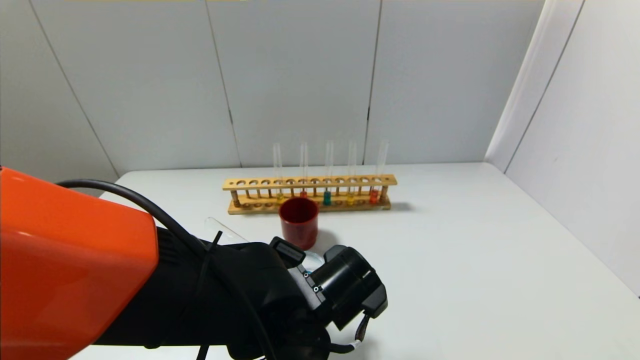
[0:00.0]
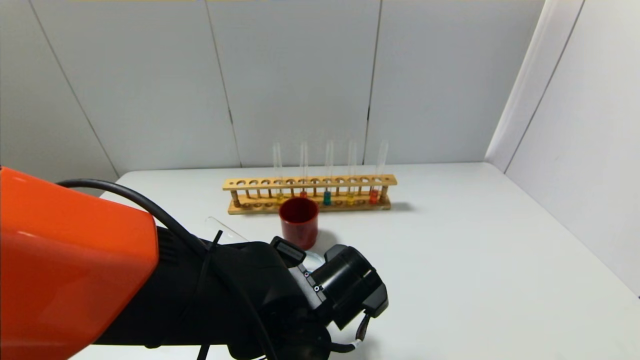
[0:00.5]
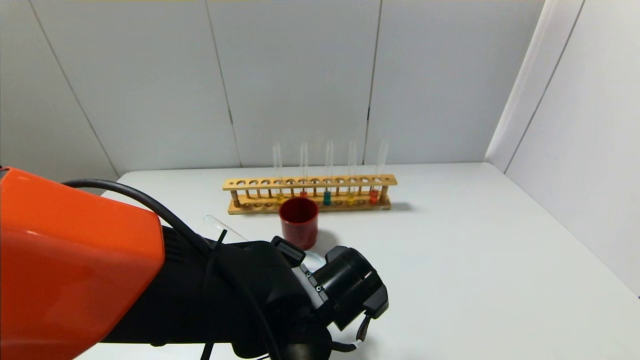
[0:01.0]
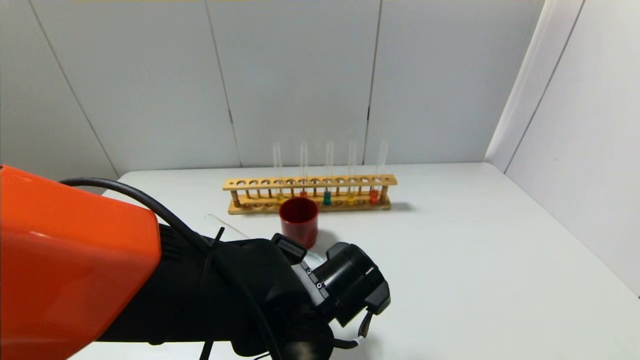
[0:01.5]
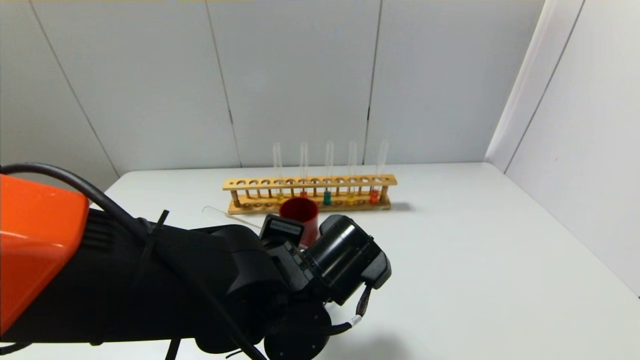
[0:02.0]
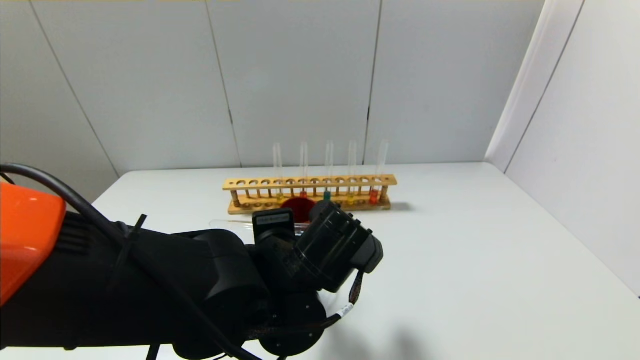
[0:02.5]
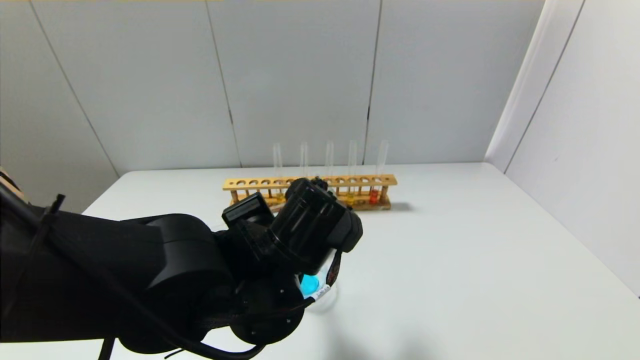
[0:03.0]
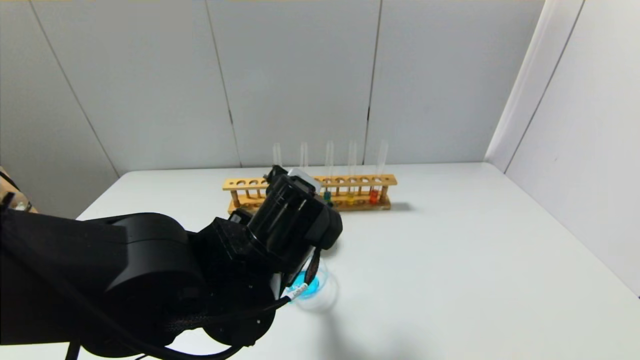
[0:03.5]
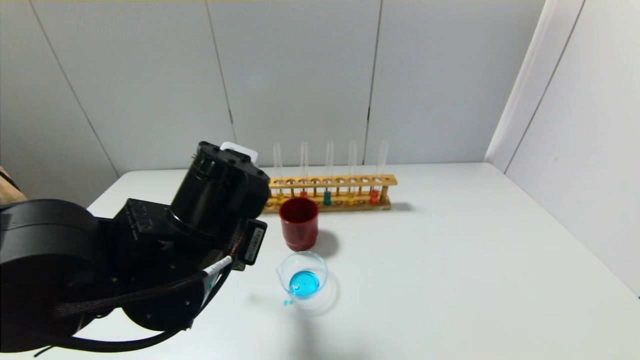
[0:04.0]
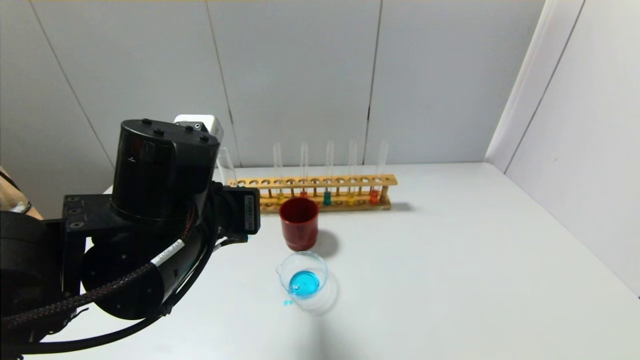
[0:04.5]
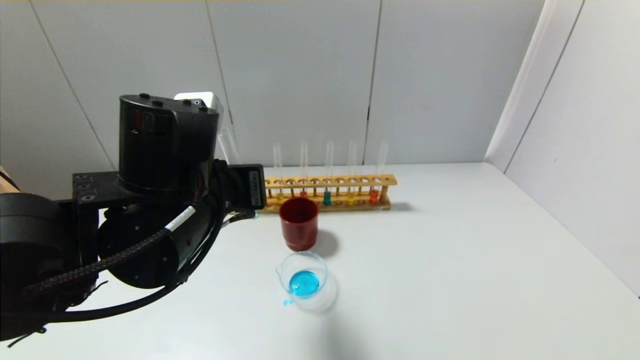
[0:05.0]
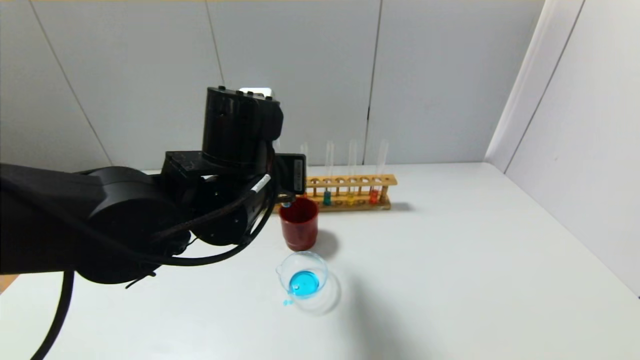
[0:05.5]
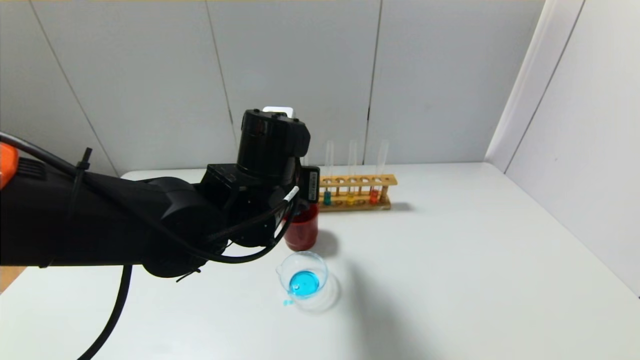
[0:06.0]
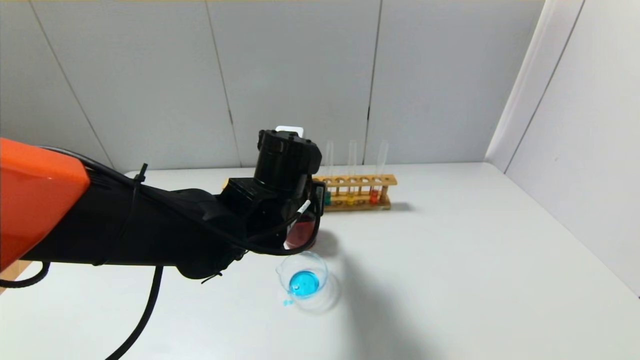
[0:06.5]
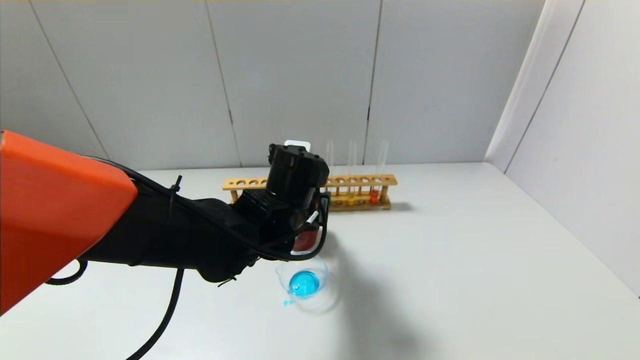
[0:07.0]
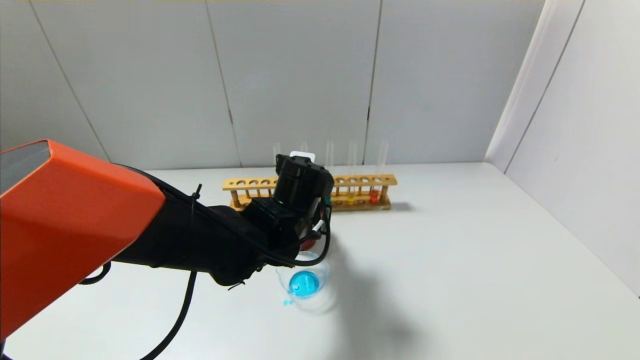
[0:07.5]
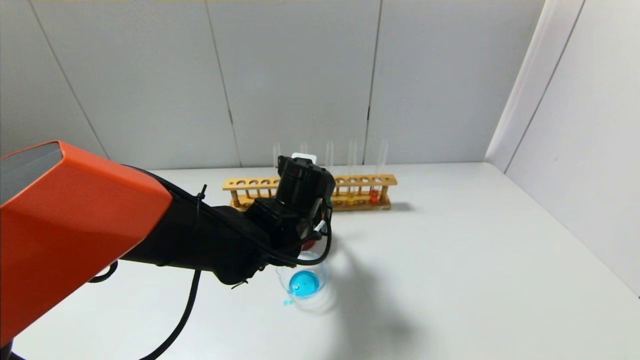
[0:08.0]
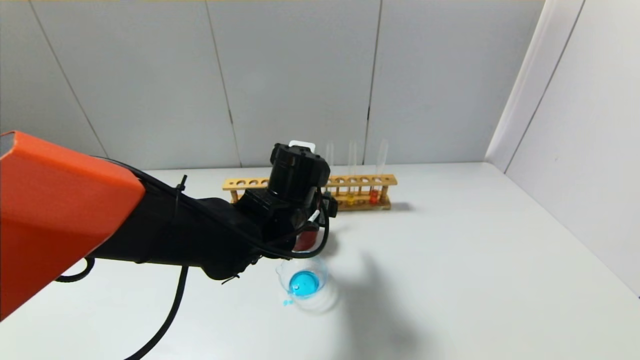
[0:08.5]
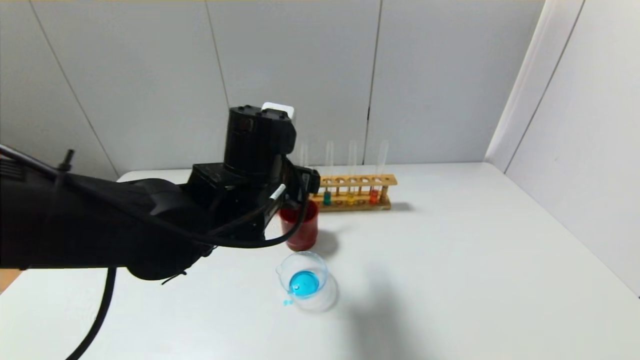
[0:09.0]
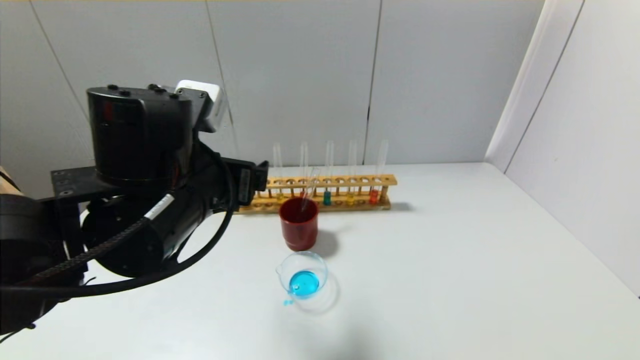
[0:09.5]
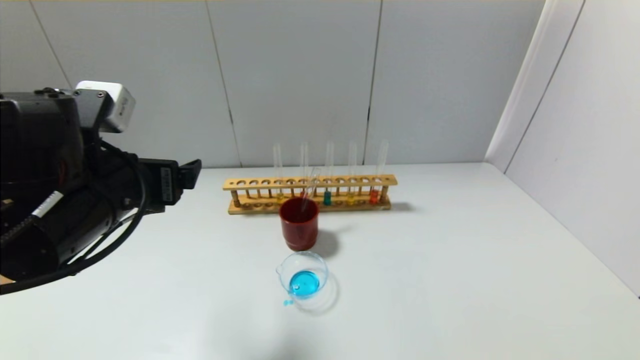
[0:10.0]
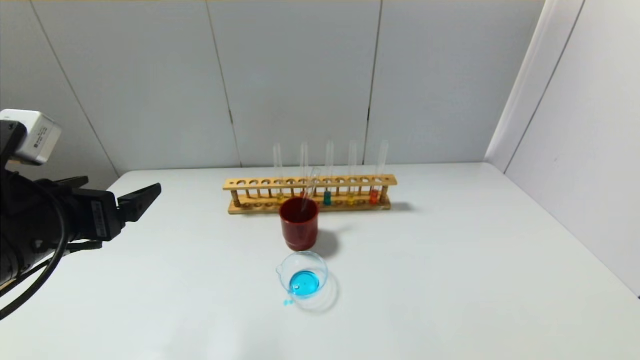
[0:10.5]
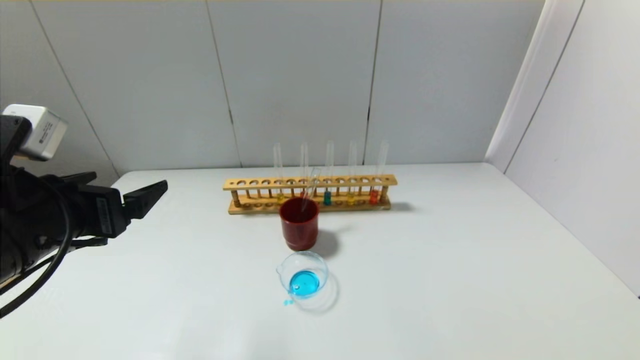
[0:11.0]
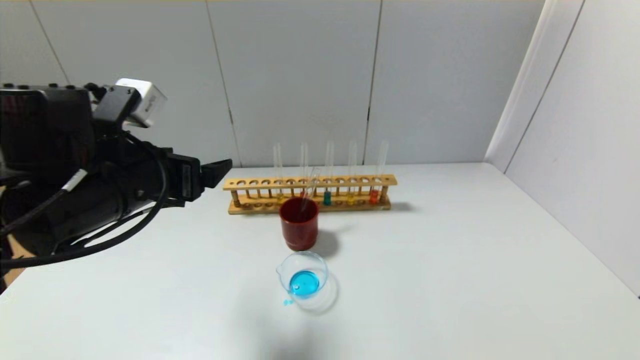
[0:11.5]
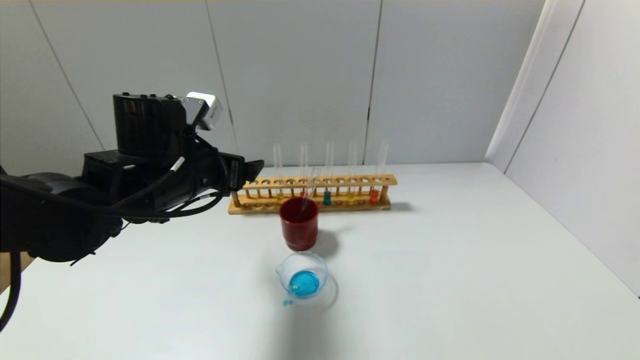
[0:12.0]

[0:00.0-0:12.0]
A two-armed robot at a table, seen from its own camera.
Step, 0:00.0 to 0:02.0: Pour the blue reagent into the graduated cylinder with the left gripper.
Step, 0:02.5 to 0:08.0: Place the test tube into the brown cup with the left gripper.
0:00.0 to 0:02.0: The grippers make only small movements.
0:02.0 to 0:04.0: The left gripper travels to the left and upward by roughly 10 cm.
0:04.0 to 0:06.0: The left gripper shifts approximately 10 cm forward and to the right.
0:06.0 to 0:08.0: The left gripper shifts some 5 cm downward, and opens.
0:08.0 to 0:10.0: The left gripper goes approximately 20 cm to the left, upward and backward, and opens its fingers.
0:10.0 to 0:12.0: The left gripper moves forward, some 10 cm.

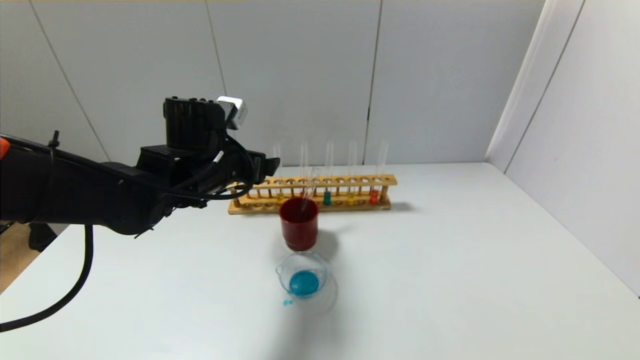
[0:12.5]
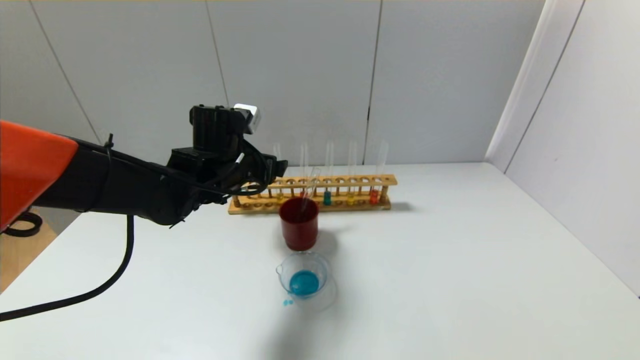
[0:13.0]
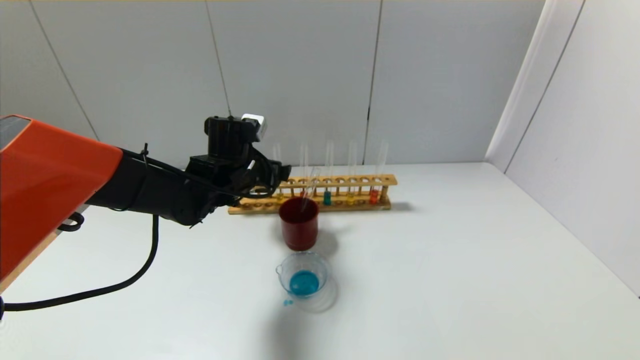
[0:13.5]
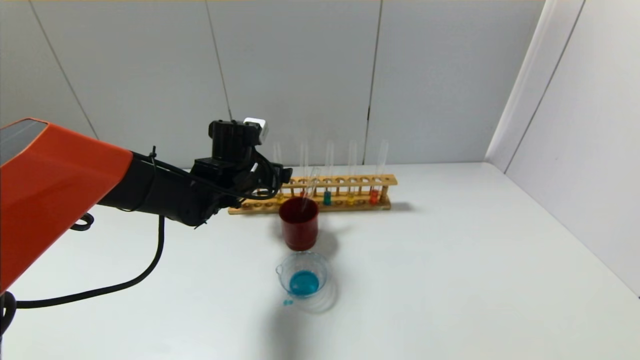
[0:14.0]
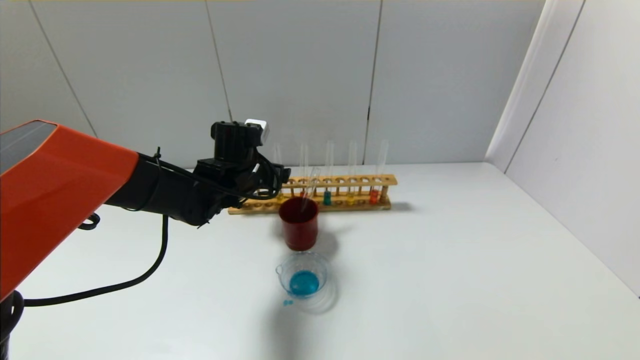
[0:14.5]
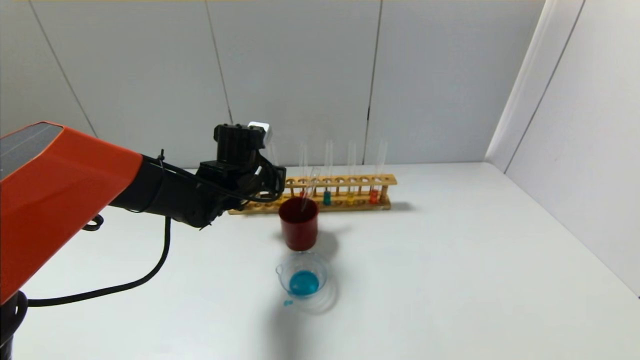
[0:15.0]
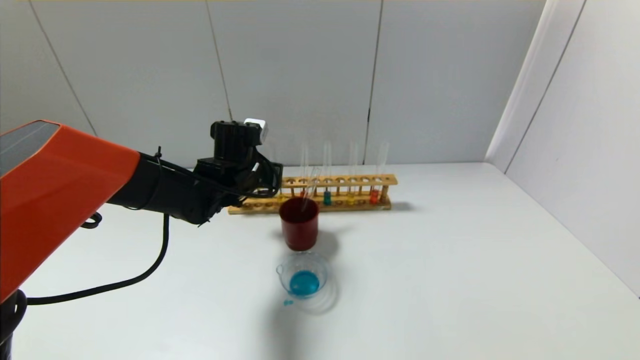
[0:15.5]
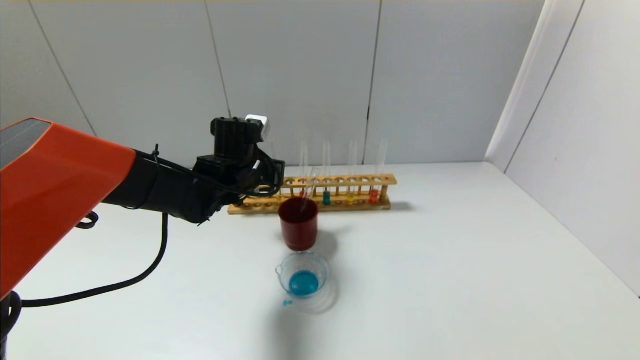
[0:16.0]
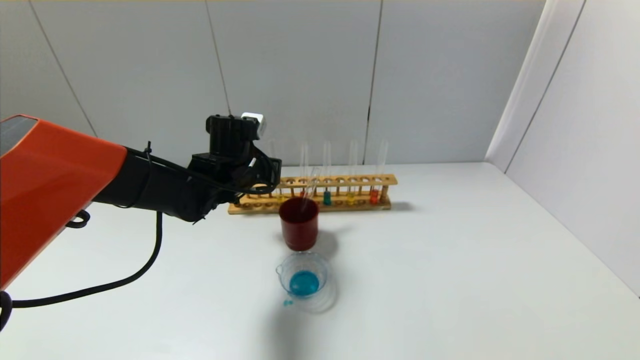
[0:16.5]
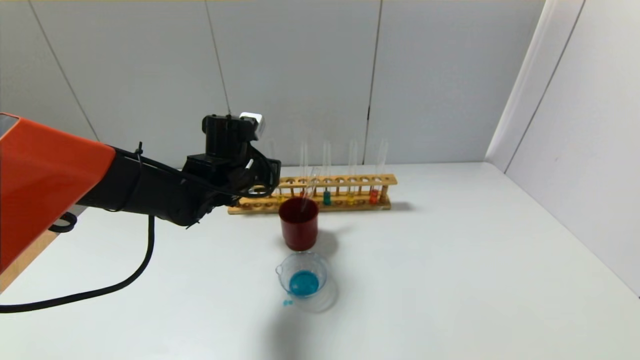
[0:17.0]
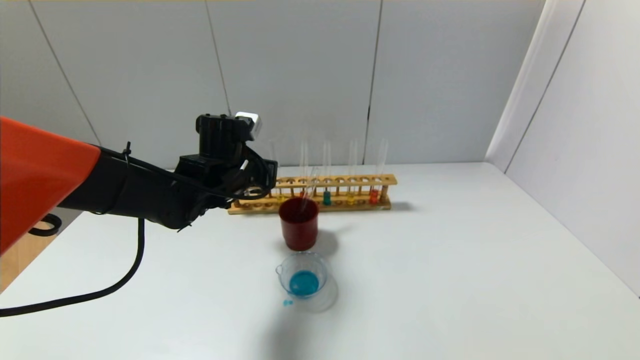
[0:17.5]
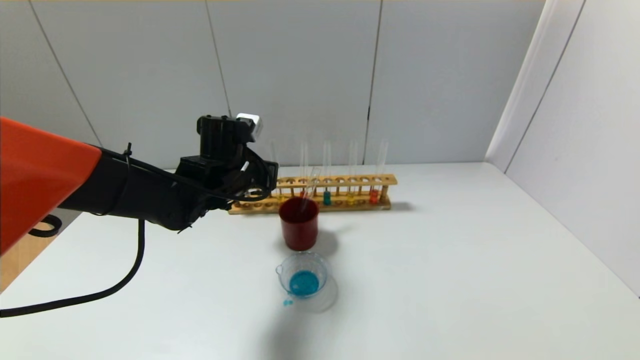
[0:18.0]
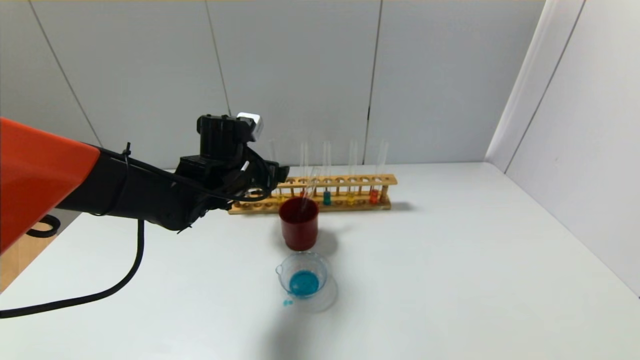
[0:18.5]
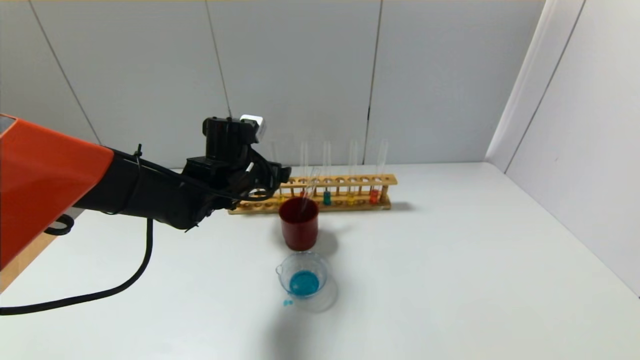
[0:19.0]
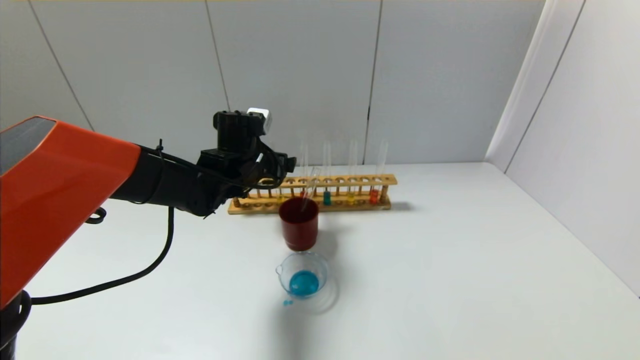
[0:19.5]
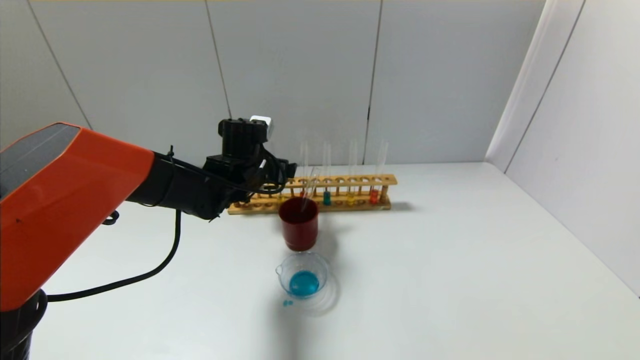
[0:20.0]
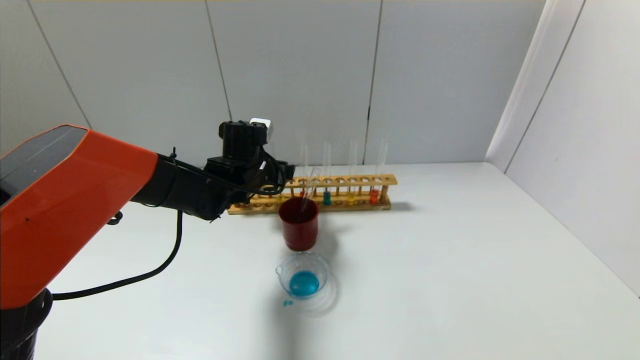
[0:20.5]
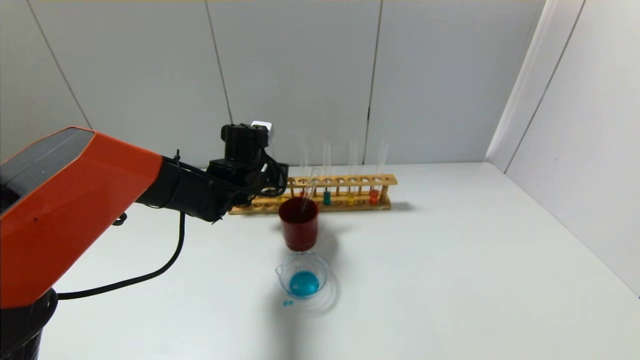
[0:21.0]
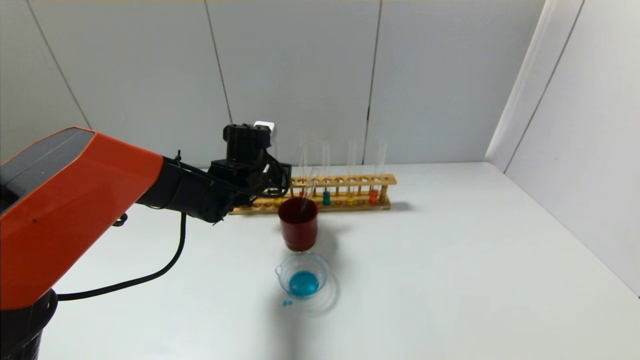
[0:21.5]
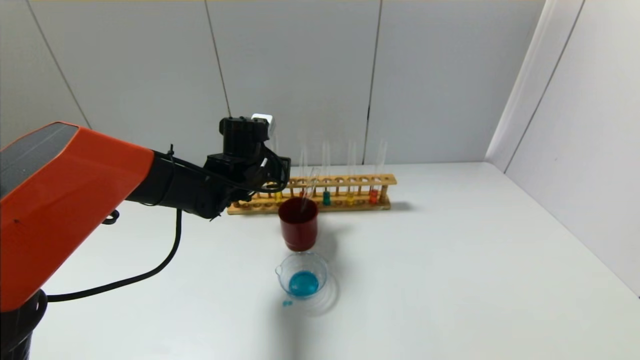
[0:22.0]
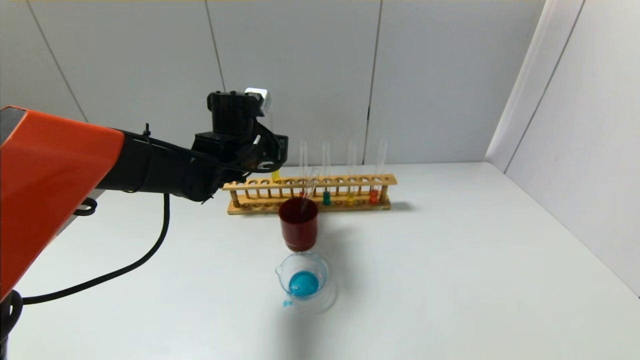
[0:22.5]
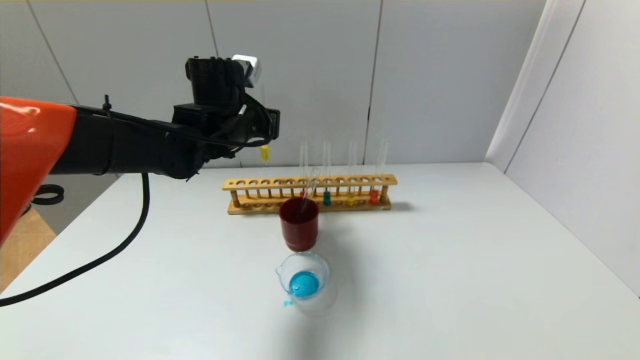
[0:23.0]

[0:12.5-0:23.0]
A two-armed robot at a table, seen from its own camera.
Step, 0:12.5 to 0:21.0: Grasp the yellow reagent with the left gripper.
0:12.5 to 0:14.5: The left gripper goes about 5 cm forward.
0:14.5 to 0:16.5: The left gripper closes its fingers.
0:16.5 to 0:19.0: The left gripper opens its fingers.
0:19.0 to 0:21.0: The left gripper closes.
0:21.0 to 0:23.0: The left gripper is displaced upward by some 10 cm.
